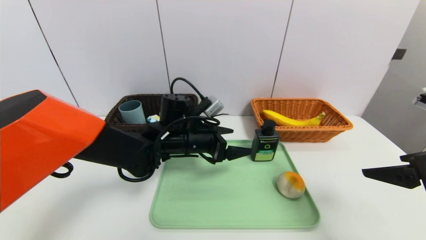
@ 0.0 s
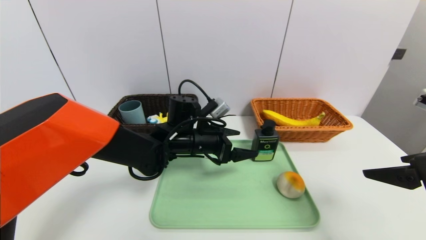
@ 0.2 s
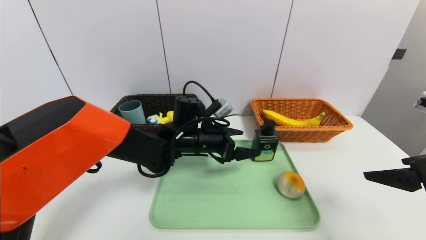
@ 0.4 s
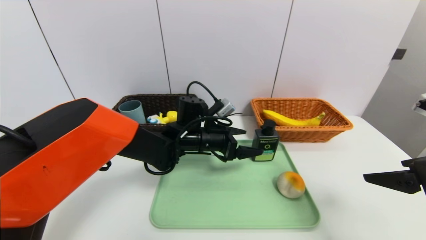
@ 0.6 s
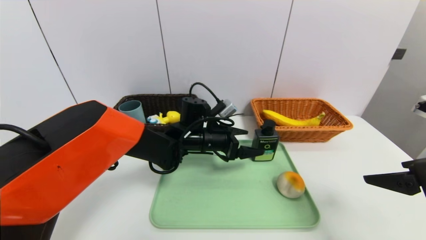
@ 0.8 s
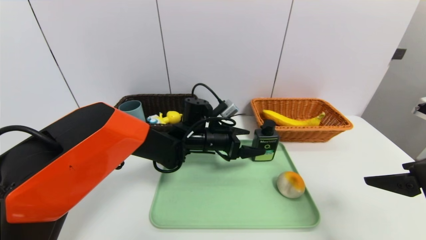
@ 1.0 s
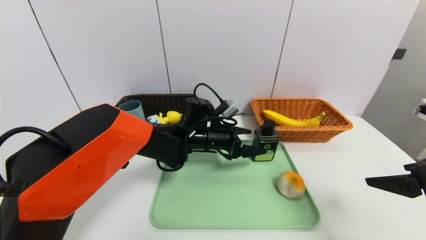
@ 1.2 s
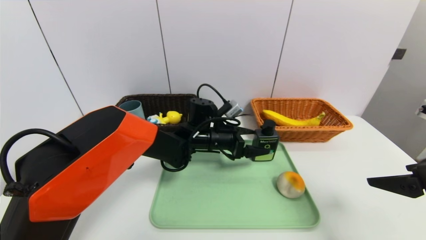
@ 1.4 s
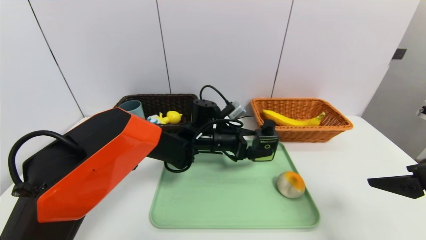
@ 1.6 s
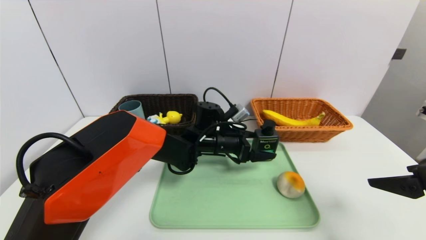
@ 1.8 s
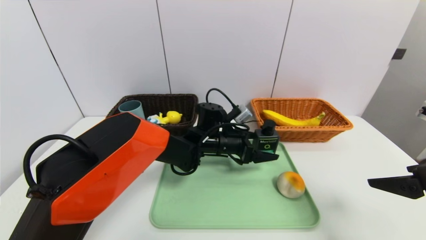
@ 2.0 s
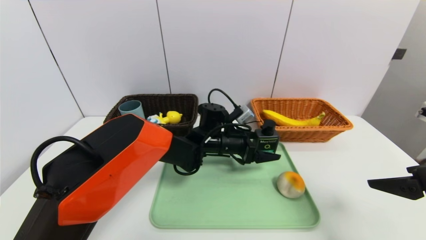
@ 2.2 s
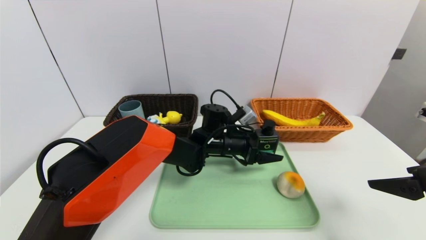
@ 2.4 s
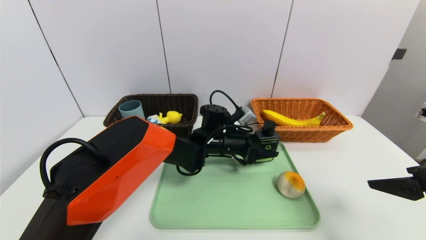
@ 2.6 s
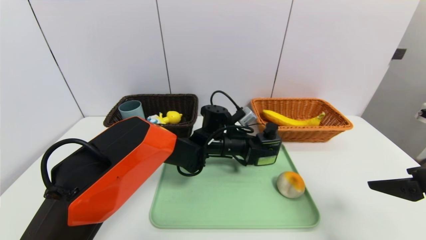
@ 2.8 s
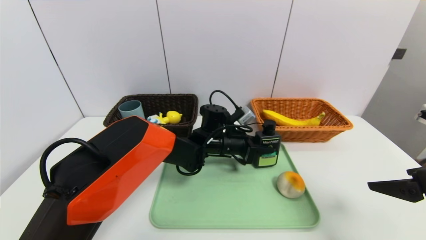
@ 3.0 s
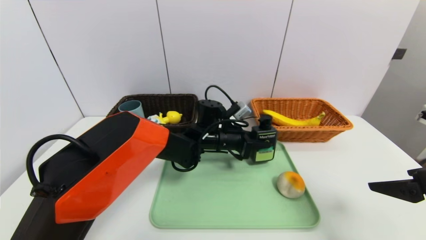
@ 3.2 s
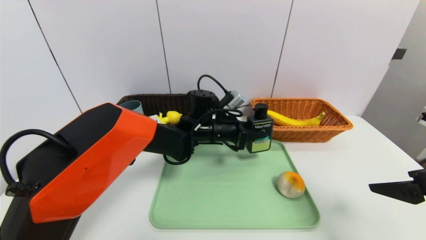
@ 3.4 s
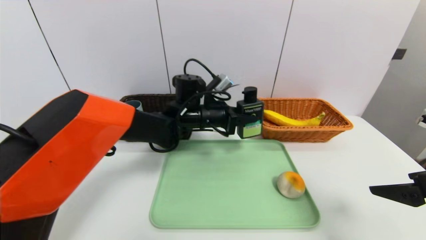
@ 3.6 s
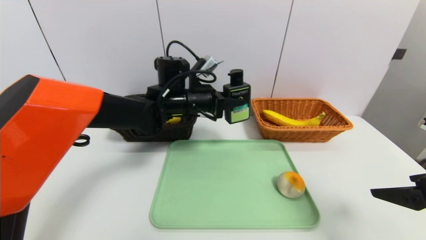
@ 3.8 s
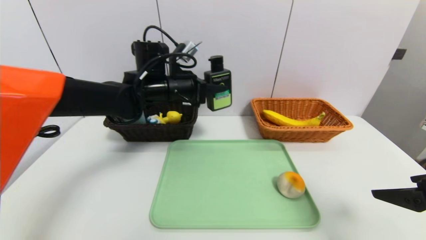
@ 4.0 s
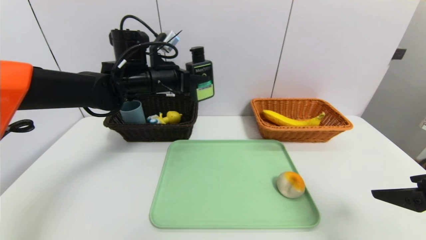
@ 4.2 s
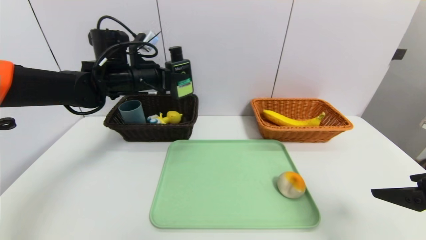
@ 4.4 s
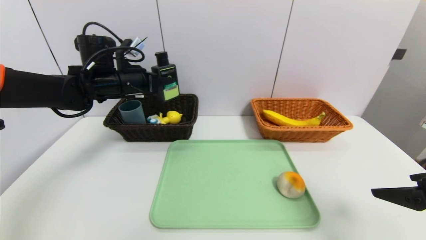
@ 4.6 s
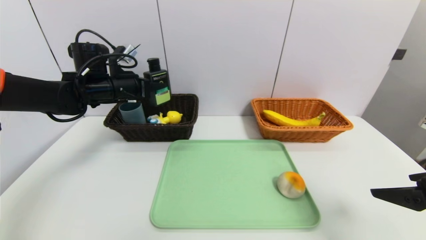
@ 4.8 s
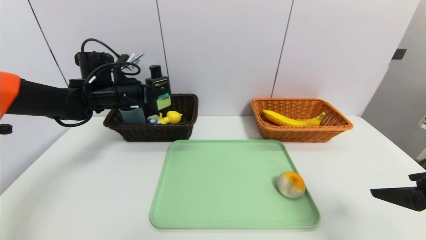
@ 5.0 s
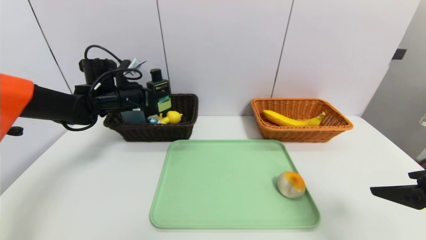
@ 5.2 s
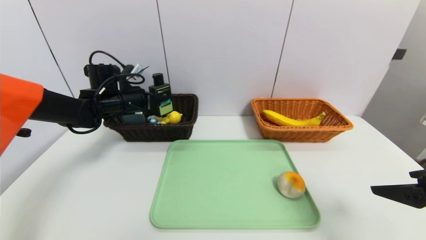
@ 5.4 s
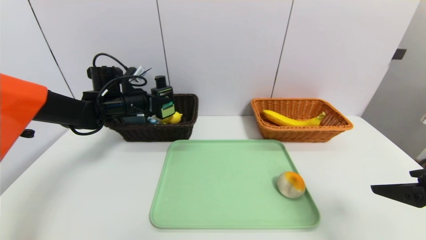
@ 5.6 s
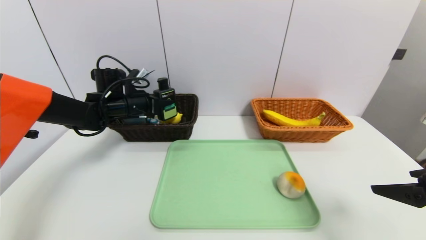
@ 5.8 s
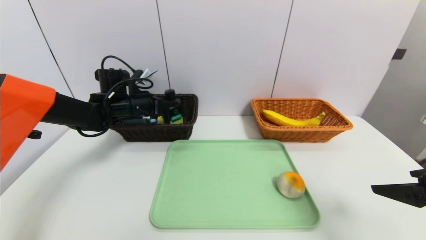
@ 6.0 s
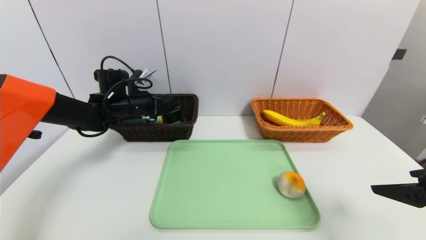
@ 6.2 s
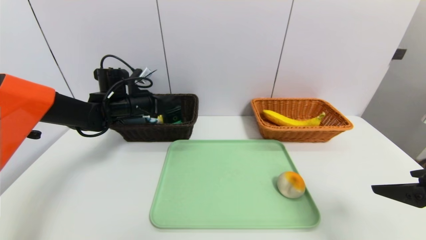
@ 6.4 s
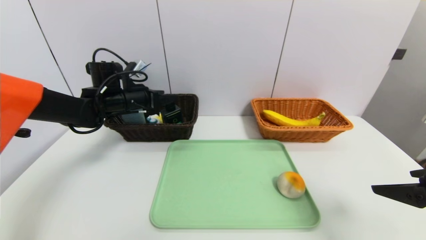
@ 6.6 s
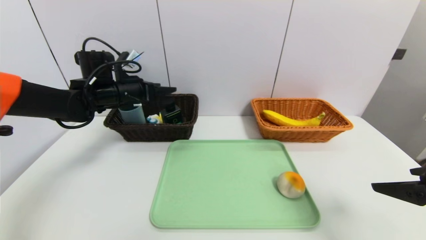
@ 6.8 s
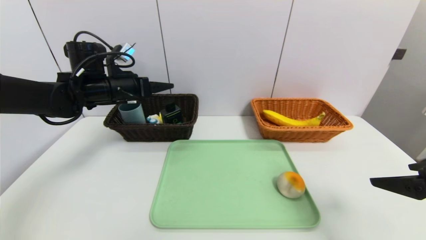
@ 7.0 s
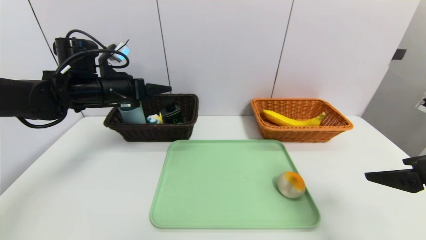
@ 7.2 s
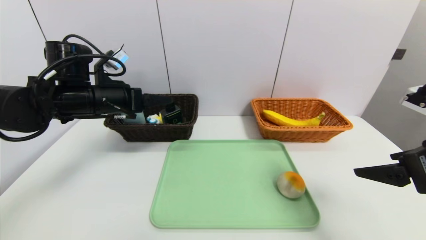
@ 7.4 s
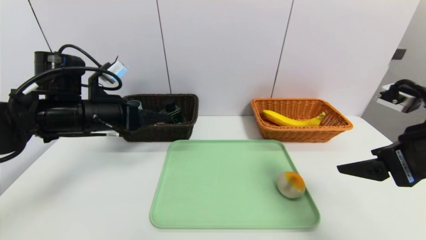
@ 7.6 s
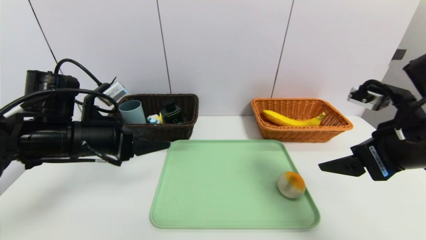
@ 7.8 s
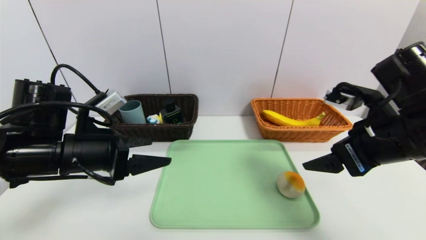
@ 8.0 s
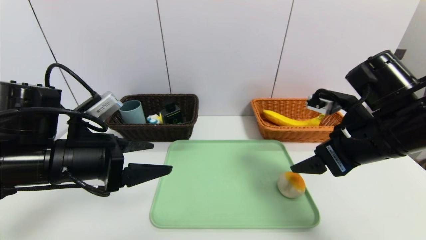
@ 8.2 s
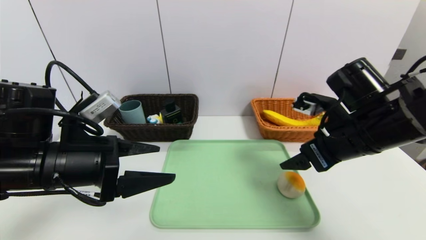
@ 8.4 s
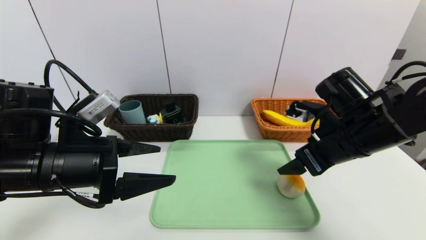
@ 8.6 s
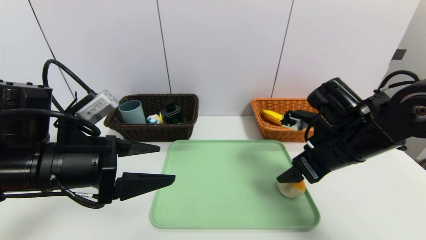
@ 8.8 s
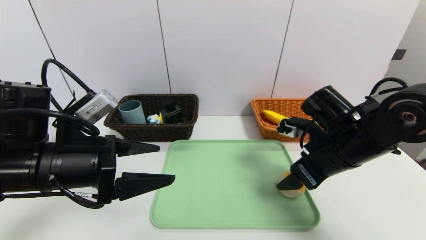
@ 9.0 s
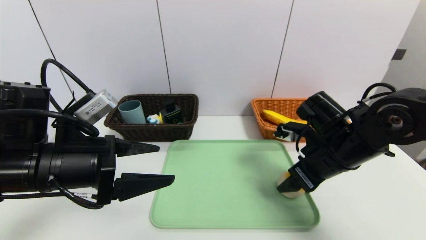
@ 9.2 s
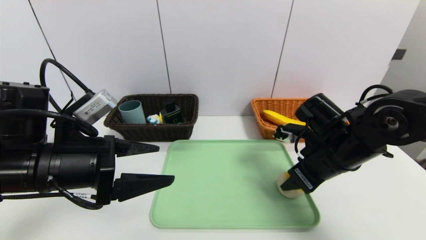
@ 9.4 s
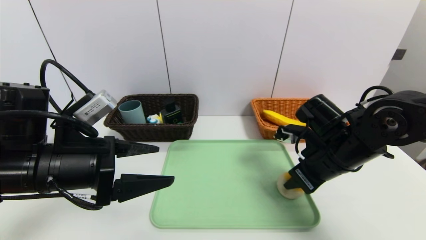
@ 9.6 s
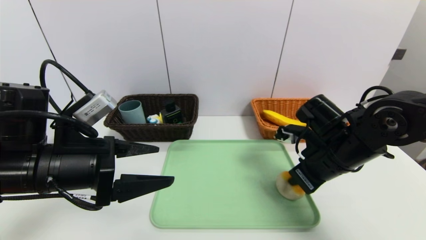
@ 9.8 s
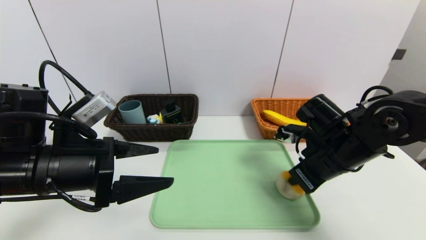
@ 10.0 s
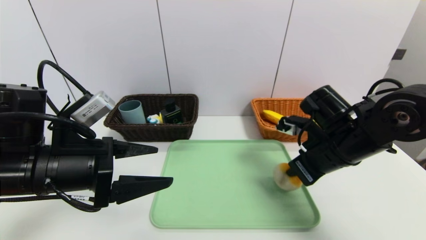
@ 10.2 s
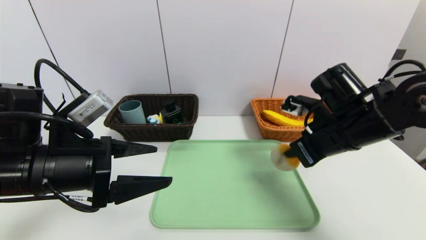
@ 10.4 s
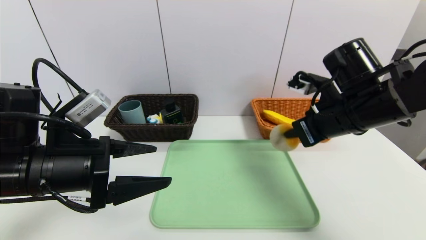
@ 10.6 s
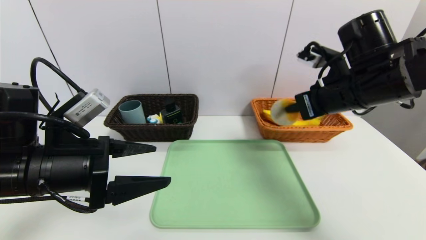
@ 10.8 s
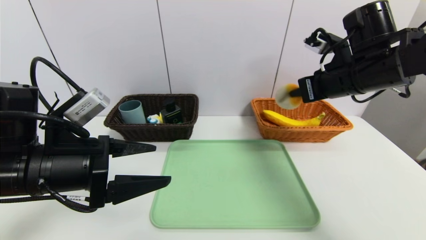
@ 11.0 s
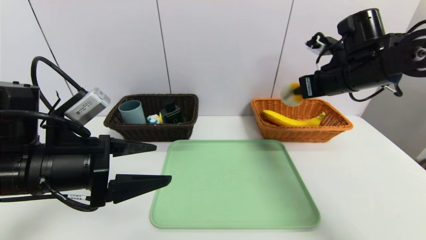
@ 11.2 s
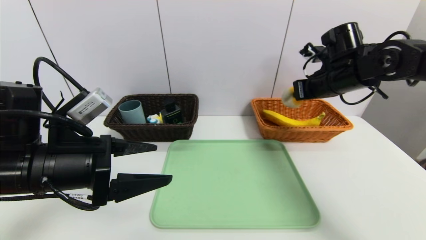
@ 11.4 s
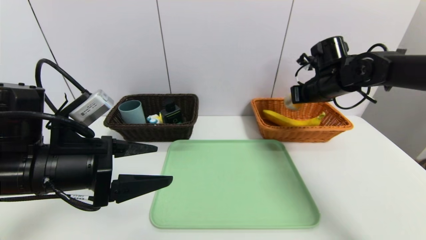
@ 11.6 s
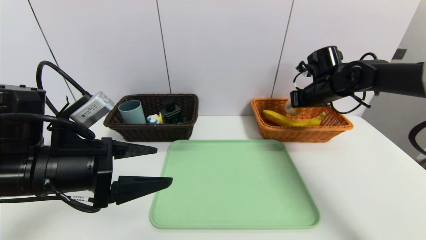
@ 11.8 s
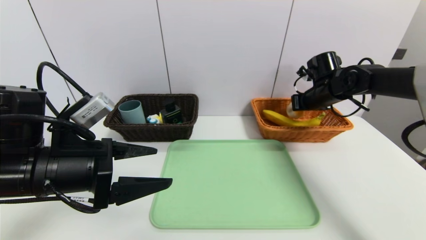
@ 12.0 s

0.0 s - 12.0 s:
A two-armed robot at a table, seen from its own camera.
Task of the whole recording: place the food in the right basket with the right gripper, and place the non food items in the left basket with the left gripper.
Step, 0.0 s - 6.8 s: Grasp the hard cleanser and put it in the left basket.
0.0 s - 1.6 s: The left gripper goes about 5 cm to the right.
1.6 s - 3.0 s: The left gripper closes up.
3.0 s - 4.4 s: The left gripper travels to the left and upward by approximately 25 cm.
4.4 s - 6.0 s: The left gripper heads downward, covering about 10 cm.
6.0 s - 7.6 s: The left gripper is displaced backward by roughly 15 cm, and opens its fingers. The right gripper moves about 5 cm.
7.6 s - 9.0 s: The right gripper travels forward, downward and to the left by about 15 cm, while the left gripper goes approximately 10 cm backward.
9.0 s - 10.4 s: The right gripper closes up.
10.4 s - 12.0 s: The right gripper goes approximately 20 cm forward and to the right.

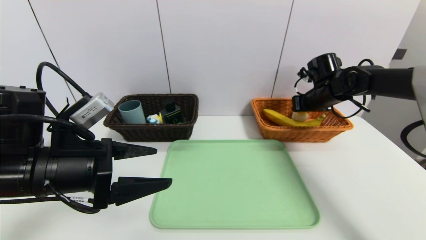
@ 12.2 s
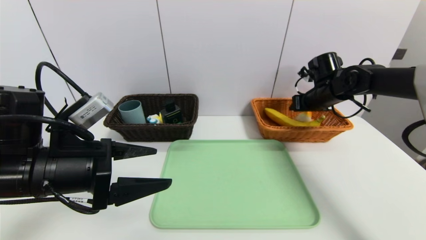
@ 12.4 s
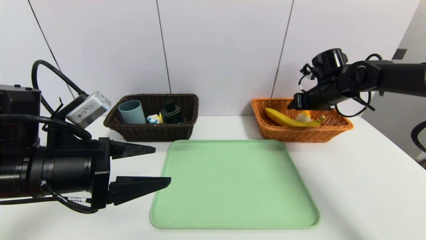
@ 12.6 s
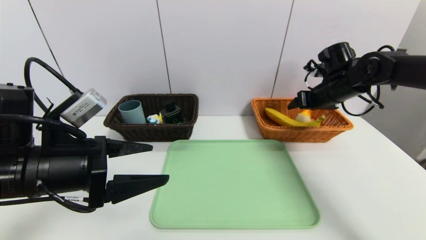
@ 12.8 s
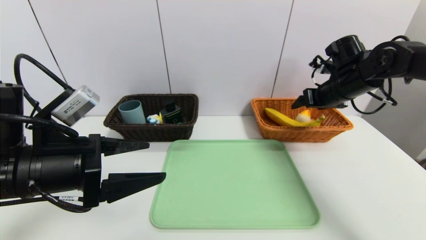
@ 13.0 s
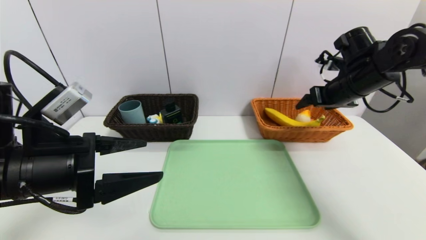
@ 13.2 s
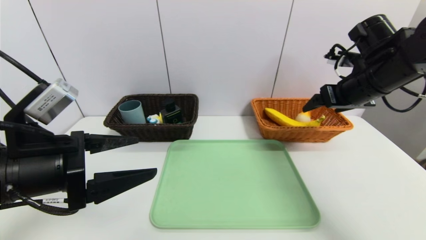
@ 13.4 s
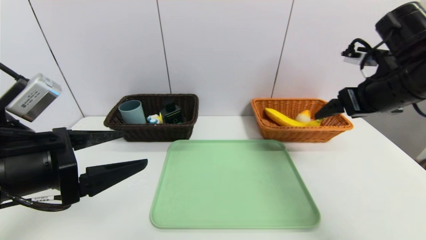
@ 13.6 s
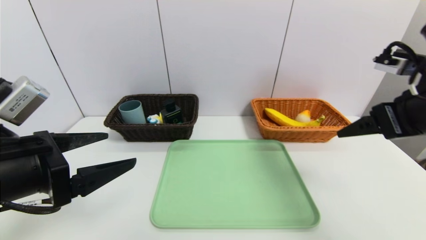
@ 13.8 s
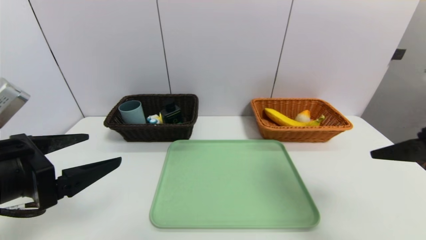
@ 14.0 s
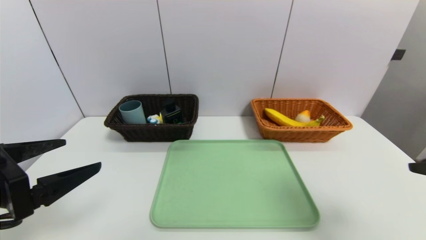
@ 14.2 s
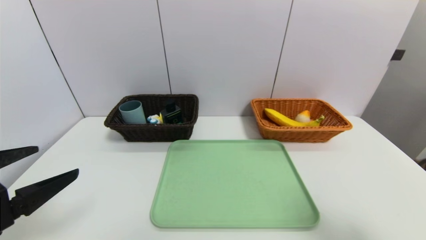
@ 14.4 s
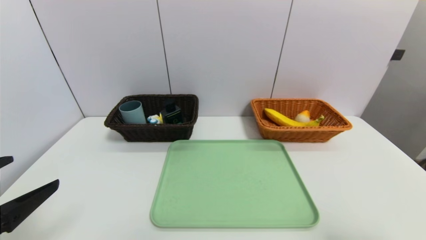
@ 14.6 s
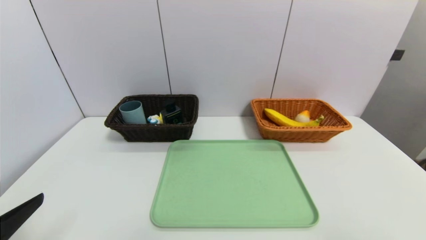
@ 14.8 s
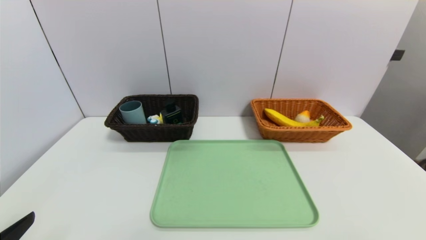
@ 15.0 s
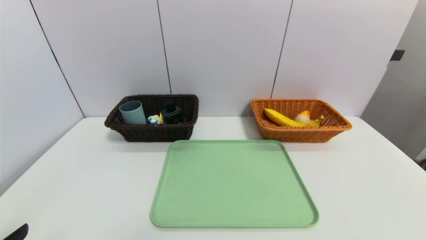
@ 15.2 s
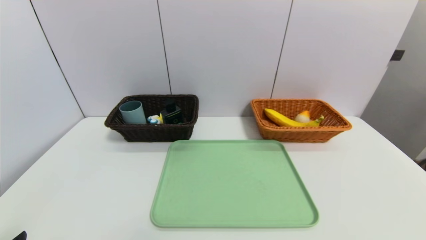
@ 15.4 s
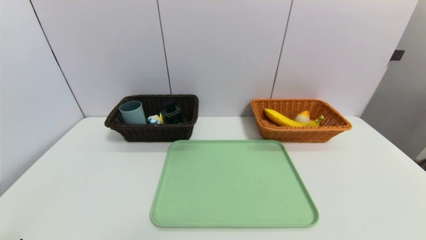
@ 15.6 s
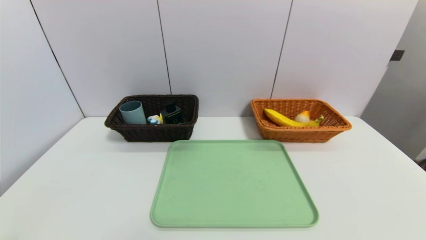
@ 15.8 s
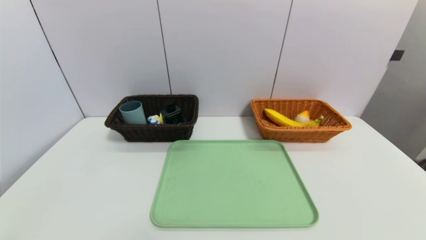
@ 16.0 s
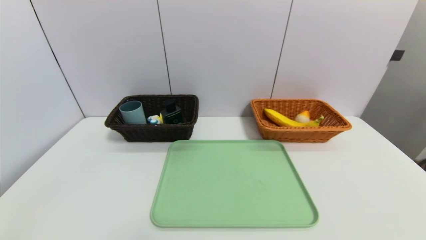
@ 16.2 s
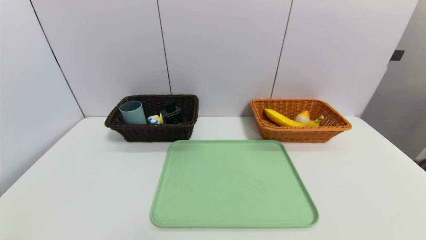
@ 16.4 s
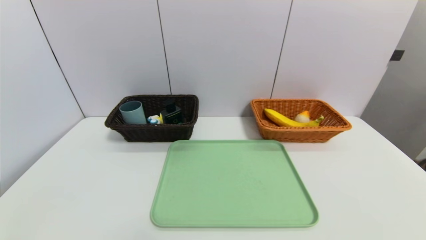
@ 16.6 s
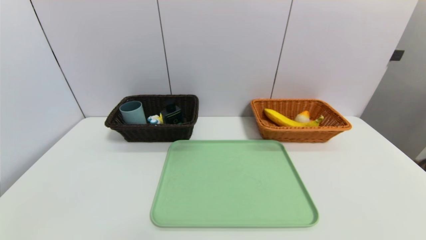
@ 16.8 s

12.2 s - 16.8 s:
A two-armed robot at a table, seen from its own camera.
Task of the whole recording: place the food in the right basket with the right gripper, and place the non food items in the left basket with the left gripper.
12.2 s - 13.8 s: The right gripper heads backward and upward, covering some 25 cm, and opens. Meanwhile the left gripper shifts by roughly 5 cm.
13.8 s - 15.2 s: The right gripper is displaced backward by roughly 25 cm, while the left gripper heads backward, to the left and downward, covering approximately 15 cm.
